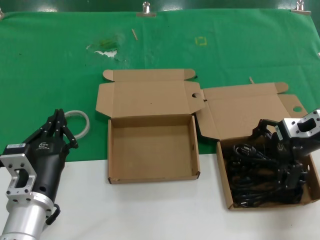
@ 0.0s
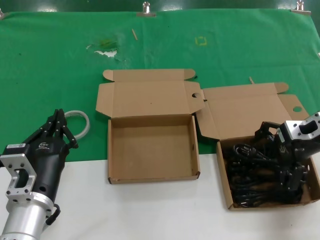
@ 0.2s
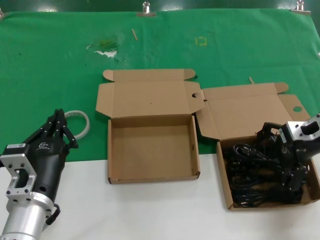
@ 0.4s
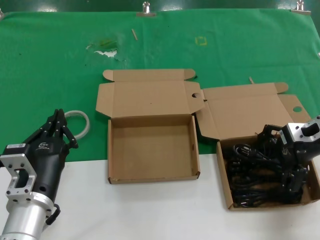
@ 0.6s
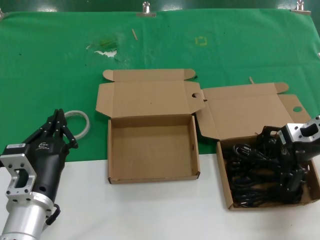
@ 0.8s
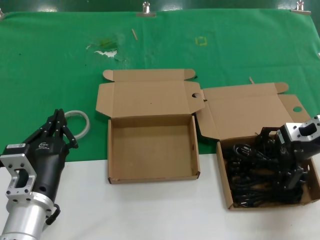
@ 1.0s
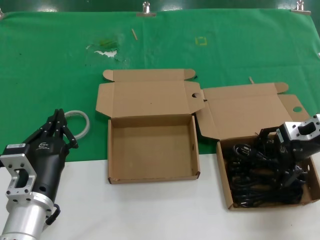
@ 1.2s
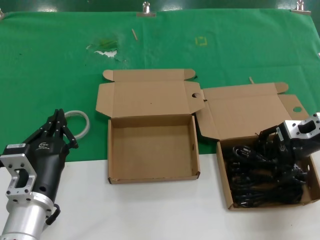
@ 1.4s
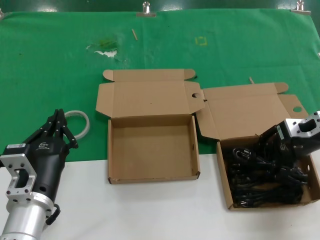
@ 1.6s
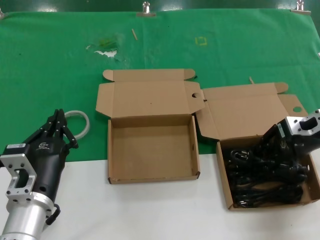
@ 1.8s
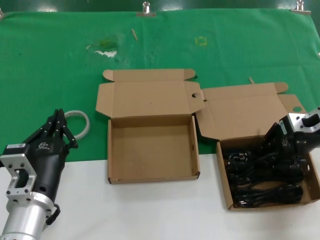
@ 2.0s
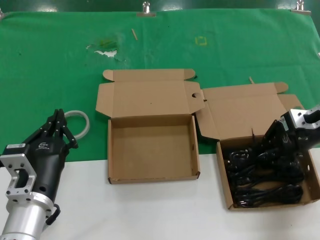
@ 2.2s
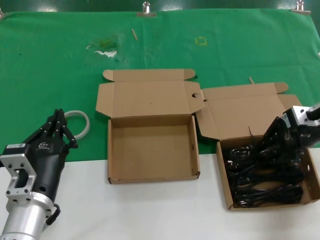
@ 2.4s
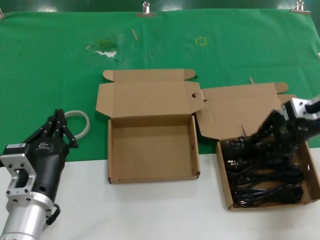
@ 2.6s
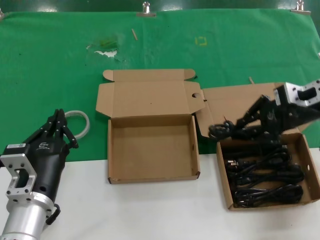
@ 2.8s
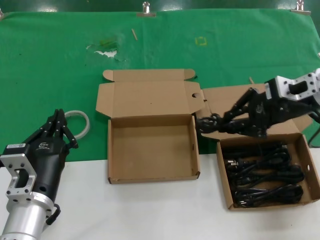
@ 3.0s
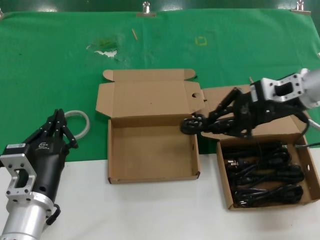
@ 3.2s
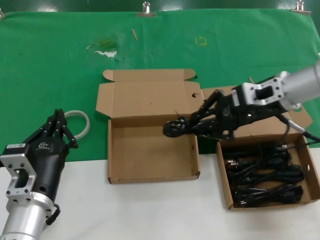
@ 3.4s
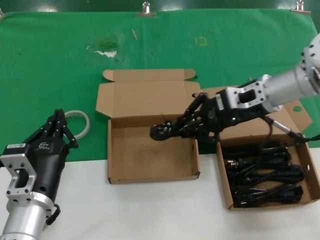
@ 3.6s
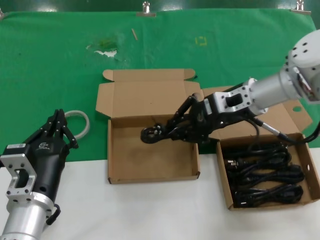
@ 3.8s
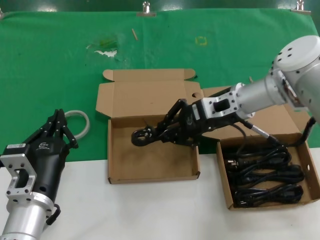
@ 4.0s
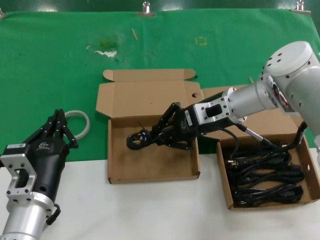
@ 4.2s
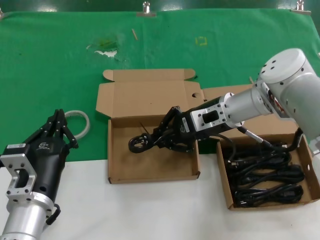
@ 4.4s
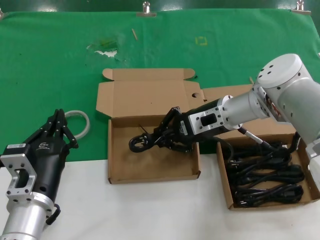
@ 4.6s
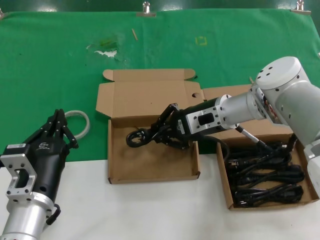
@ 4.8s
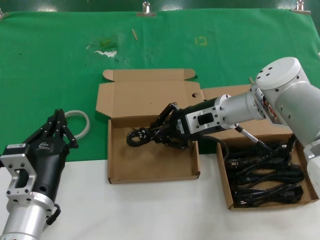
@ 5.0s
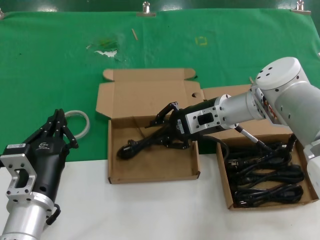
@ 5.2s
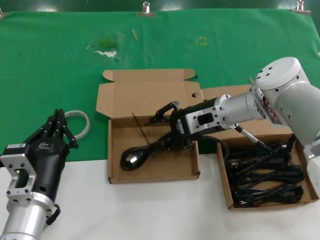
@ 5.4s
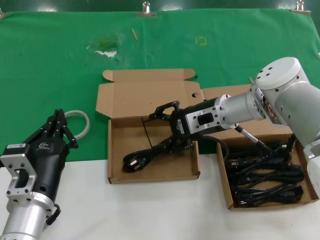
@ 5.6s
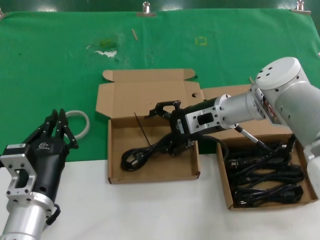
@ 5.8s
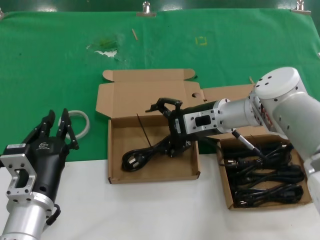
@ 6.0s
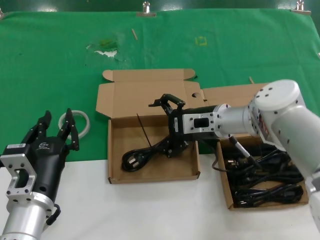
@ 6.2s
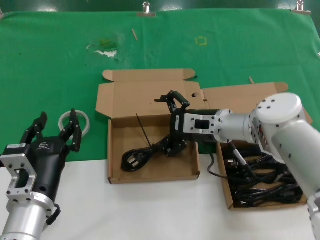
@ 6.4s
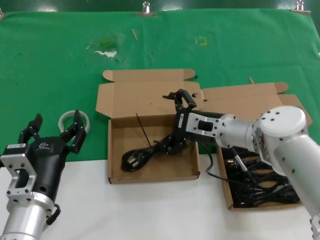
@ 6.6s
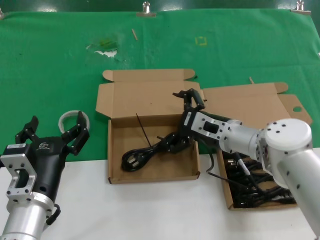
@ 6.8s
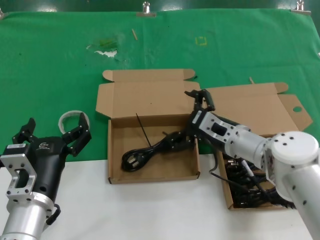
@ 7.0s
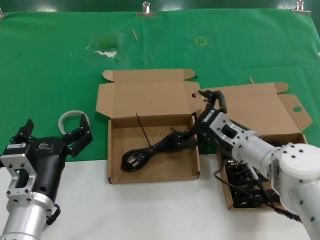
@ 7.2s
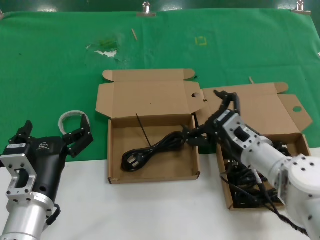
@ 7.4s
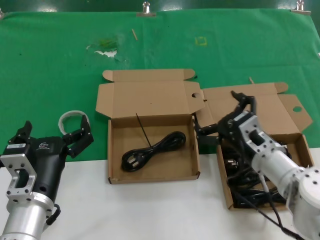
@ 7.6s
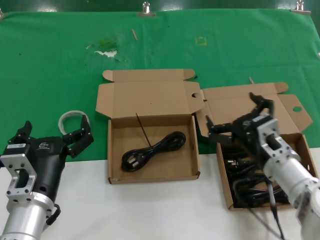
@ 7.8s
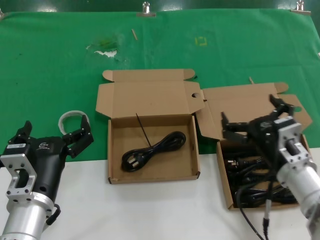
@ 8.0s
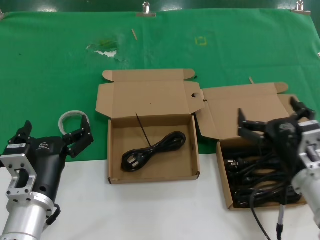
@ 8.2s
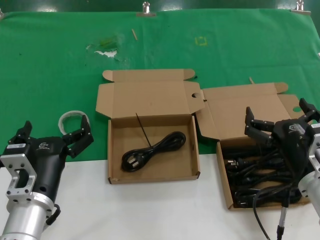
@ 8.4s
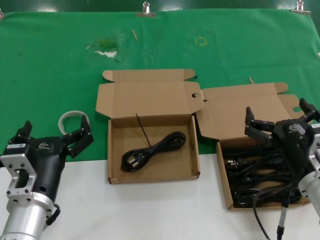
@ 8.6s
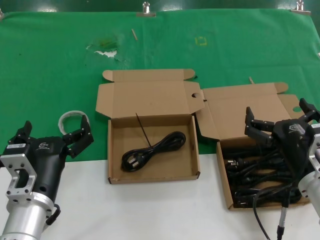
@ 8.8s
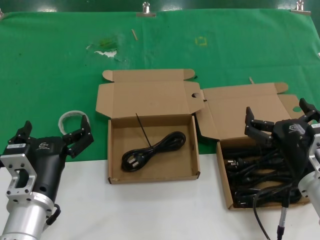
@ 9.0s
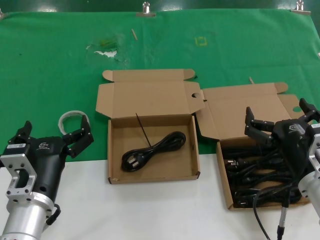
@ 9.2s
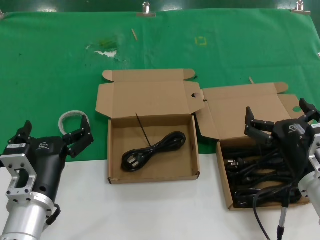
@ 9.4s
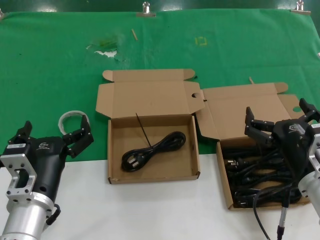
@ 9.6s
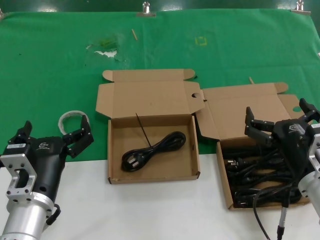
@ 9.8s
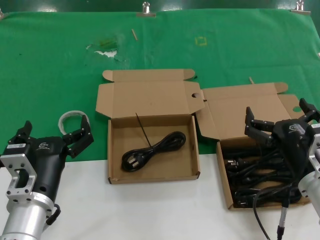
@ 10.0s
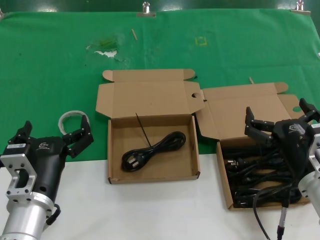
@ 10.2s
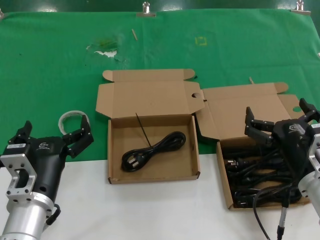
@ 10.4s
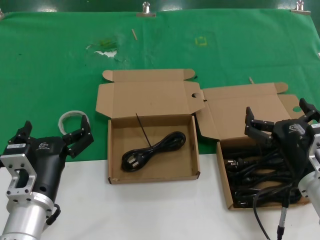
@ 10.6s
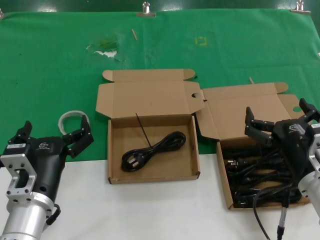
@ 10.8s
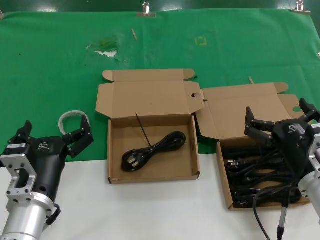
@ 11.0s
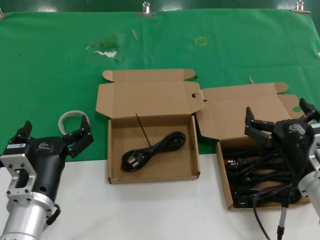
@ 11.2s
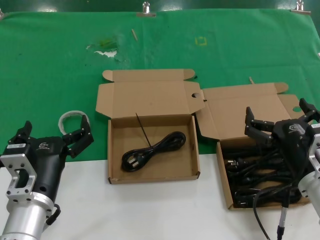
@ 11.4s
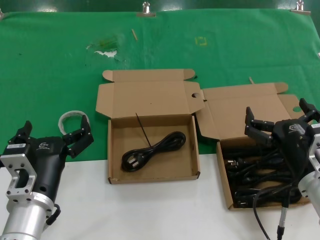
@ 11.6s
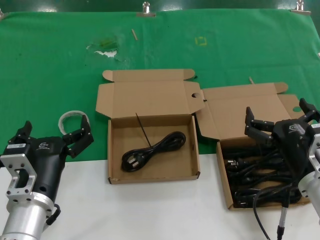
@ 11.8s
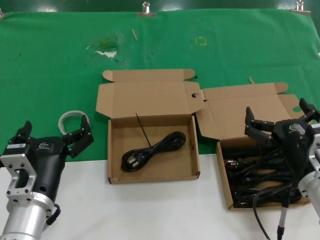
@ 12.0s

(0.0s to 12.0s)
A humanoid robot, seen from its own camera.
Task of the whole recording: take the parts from the box containing them and put them into an empty box.
Step, 2.0s - 5.2s: Place the data cable in the another box.
0.0s - 1.6s: The hands make only small movements.
1.6s - 3.0s: The right hand is displaced upward by about 5 cm.
3.0s - 4.4s: The right hand travels to the left and downward by roughly 15 cm.
4.4s - 6.0s: The hands make only small movements.
6.0s - 7.6s: The right hand is displaced backward and downward by some 15 cm.
7.6s - 9.0s: The right hand is displaced backward by about 10 cm.
9.0s - 12.0s: Both hands stay put.

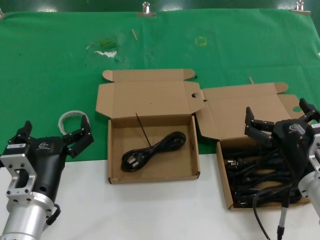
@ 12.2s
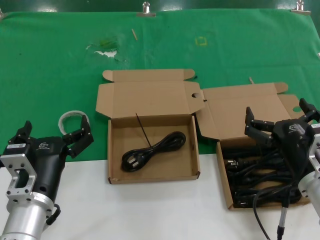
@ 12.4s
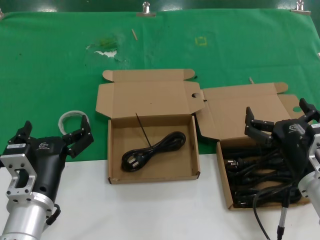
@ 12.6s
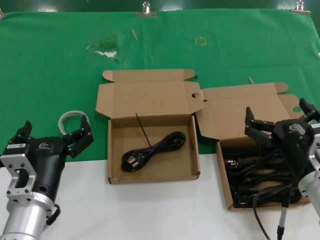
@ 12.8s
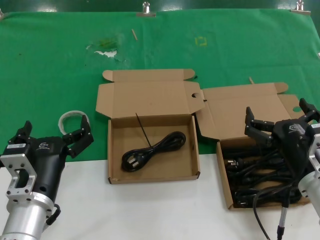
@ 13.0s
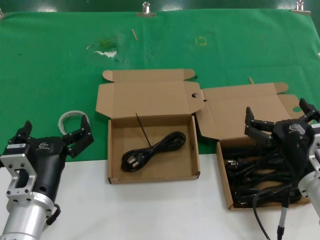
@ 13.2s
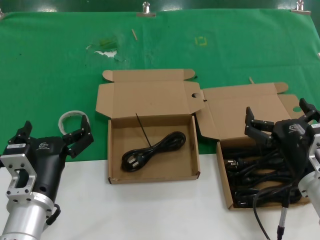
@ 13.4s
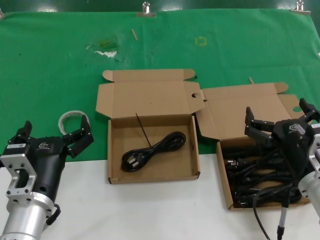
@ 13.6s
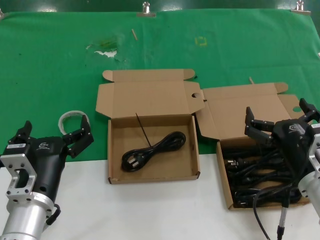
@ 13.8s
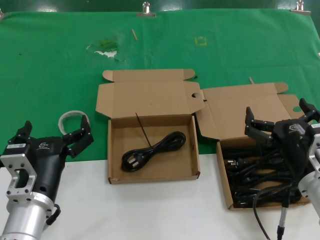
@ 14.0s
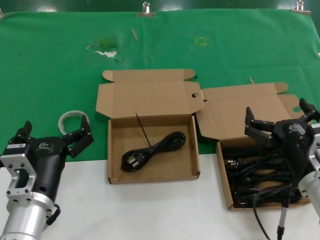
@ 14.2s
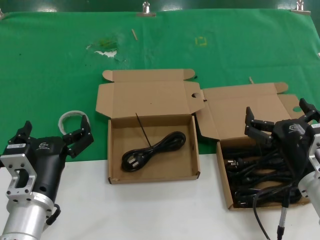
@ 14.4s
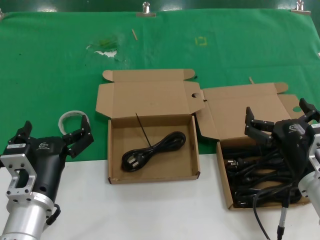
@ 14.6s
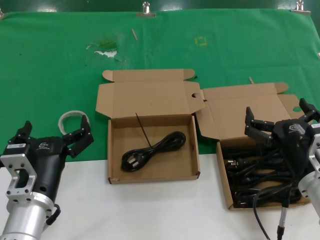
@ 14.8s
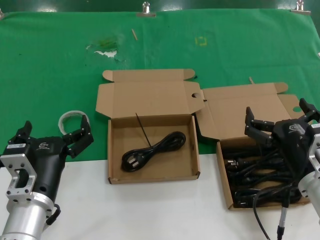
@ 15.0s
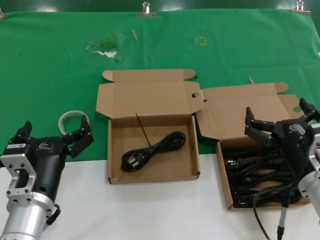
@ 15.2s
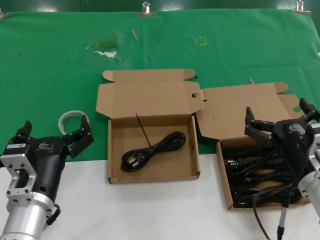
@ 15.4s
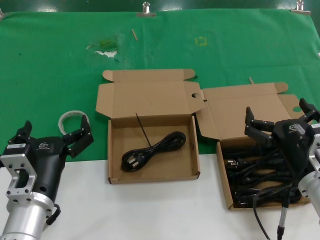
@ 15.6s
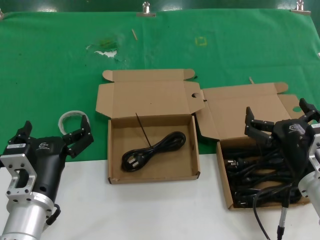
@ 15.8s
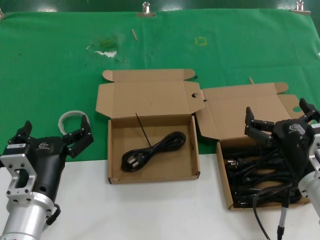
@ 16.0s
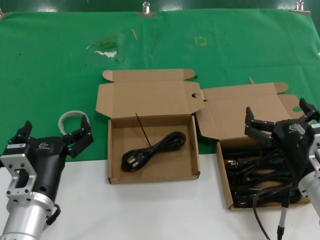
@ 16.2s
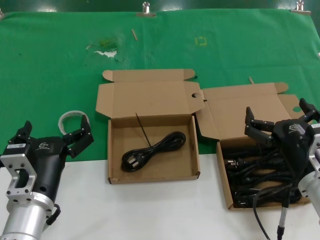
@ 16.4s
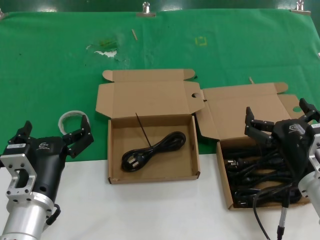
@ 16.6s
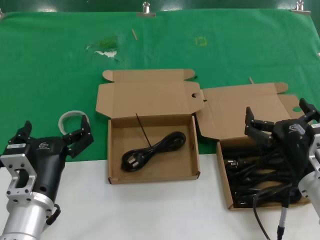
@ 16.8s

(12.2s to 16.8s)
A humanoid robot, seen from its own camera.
Task of the whole recording: take the parts from the box containing them and put them into an empty box.
12.2s - 16.8s: Both hands stay put.
